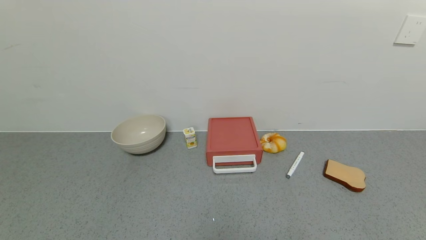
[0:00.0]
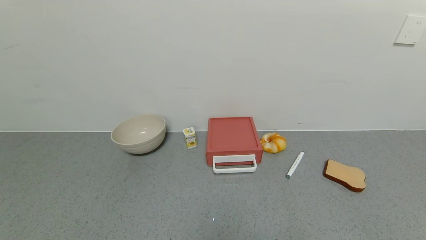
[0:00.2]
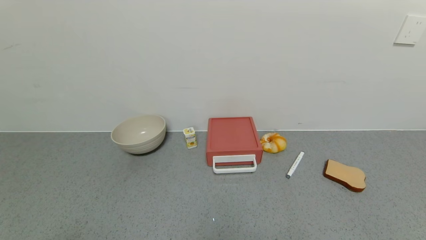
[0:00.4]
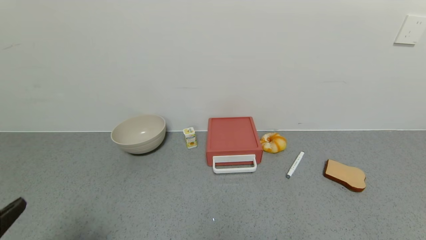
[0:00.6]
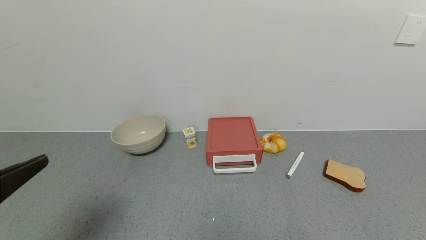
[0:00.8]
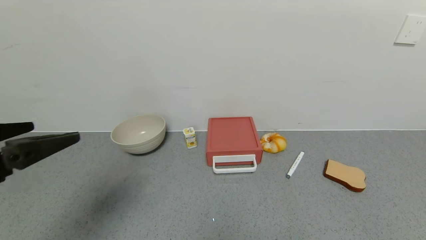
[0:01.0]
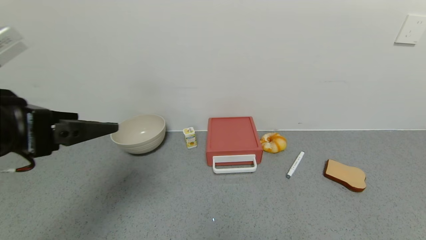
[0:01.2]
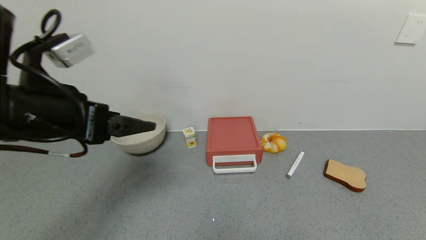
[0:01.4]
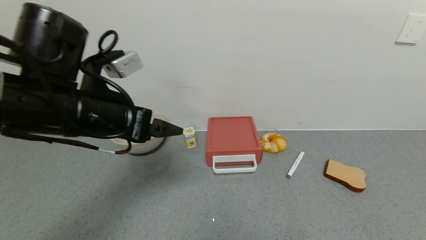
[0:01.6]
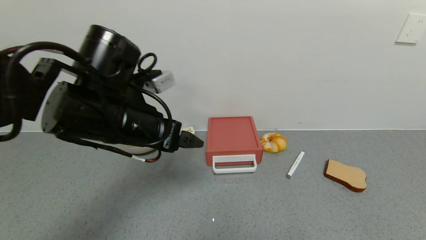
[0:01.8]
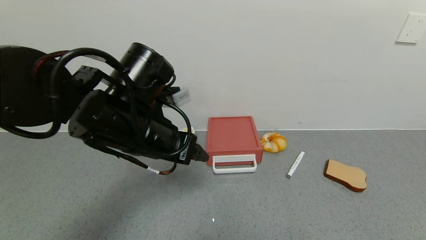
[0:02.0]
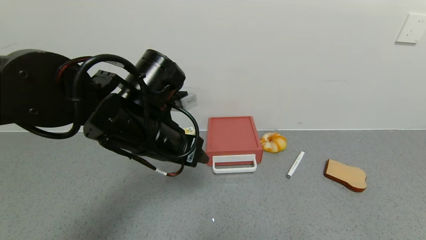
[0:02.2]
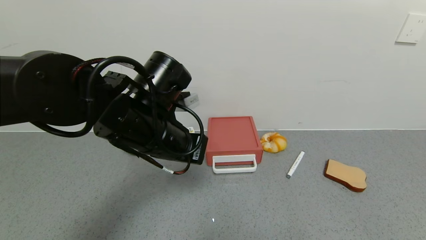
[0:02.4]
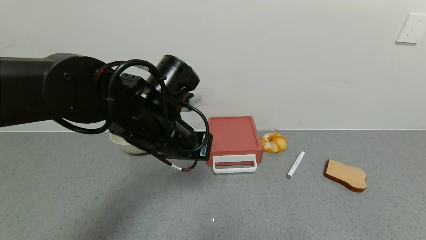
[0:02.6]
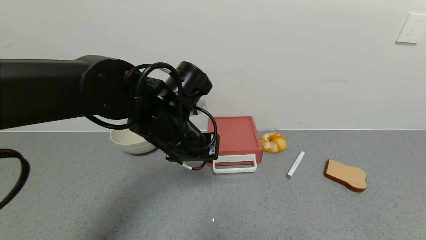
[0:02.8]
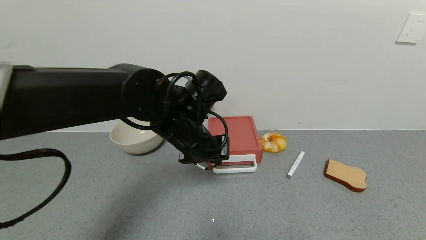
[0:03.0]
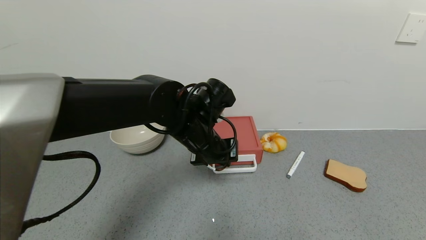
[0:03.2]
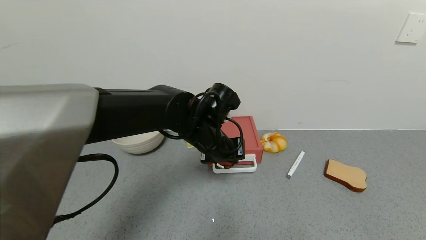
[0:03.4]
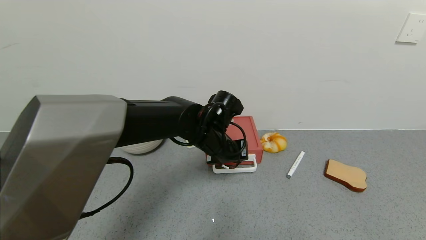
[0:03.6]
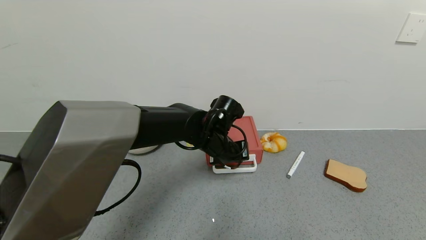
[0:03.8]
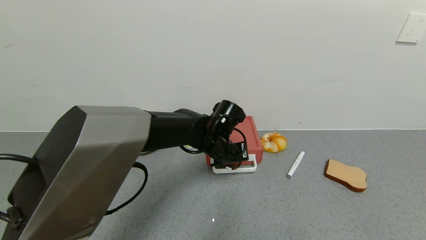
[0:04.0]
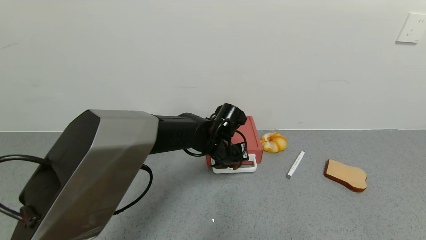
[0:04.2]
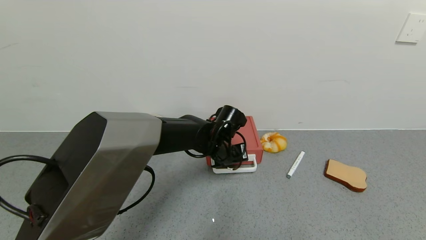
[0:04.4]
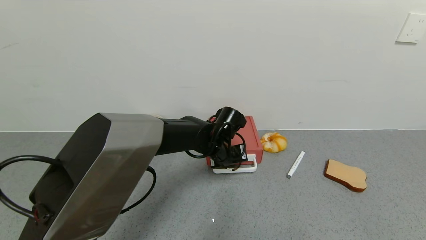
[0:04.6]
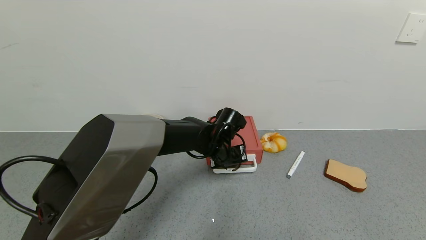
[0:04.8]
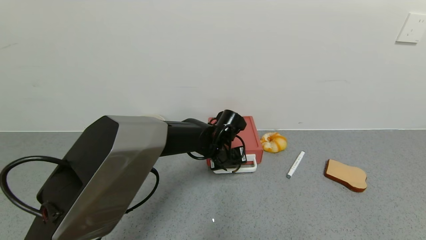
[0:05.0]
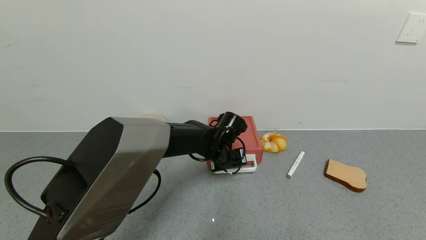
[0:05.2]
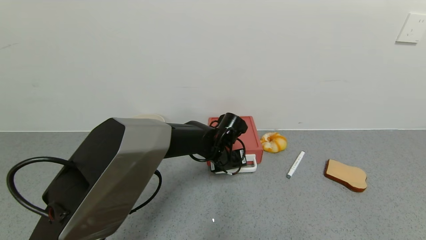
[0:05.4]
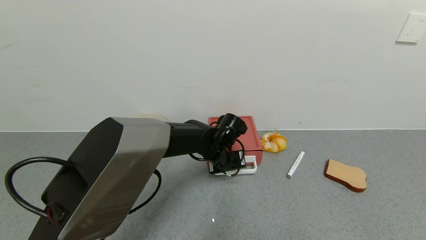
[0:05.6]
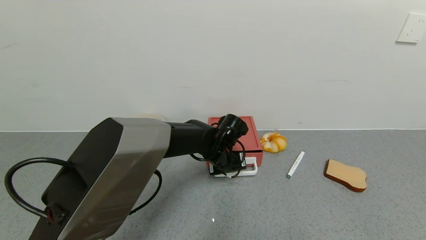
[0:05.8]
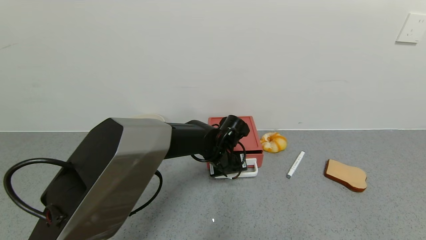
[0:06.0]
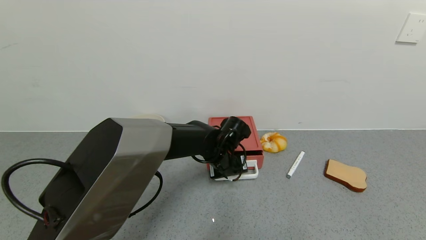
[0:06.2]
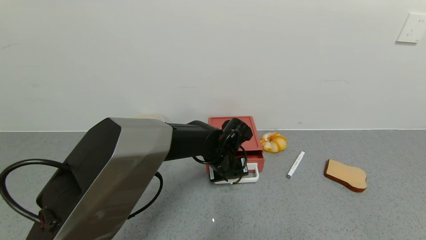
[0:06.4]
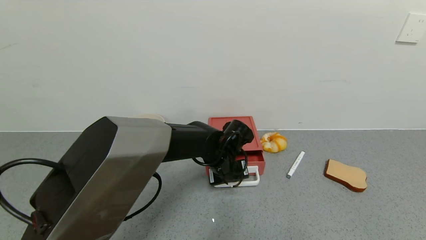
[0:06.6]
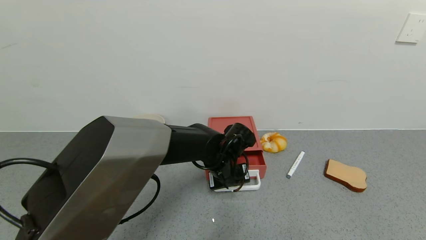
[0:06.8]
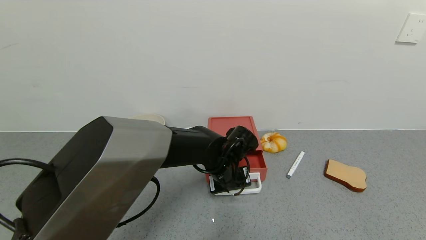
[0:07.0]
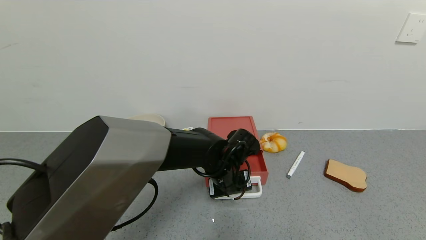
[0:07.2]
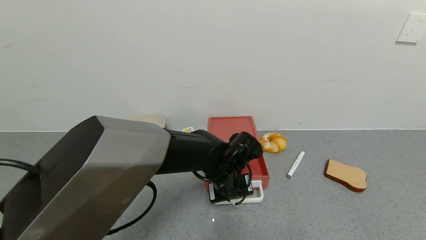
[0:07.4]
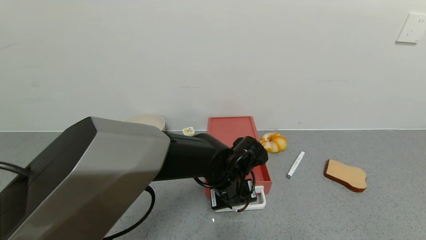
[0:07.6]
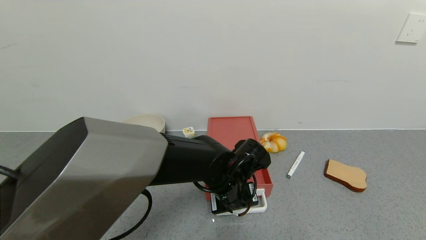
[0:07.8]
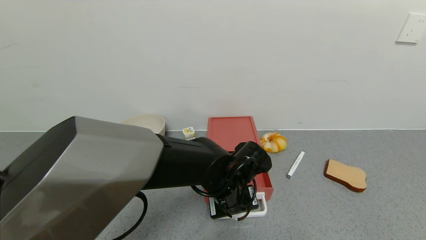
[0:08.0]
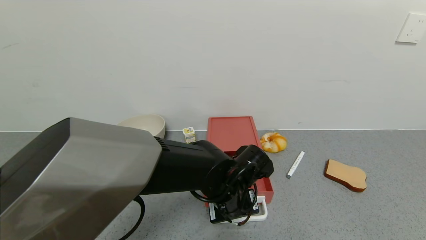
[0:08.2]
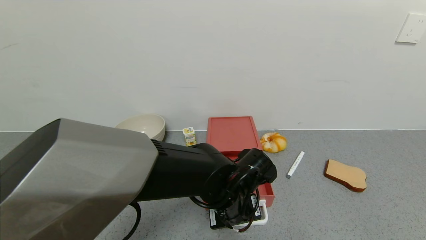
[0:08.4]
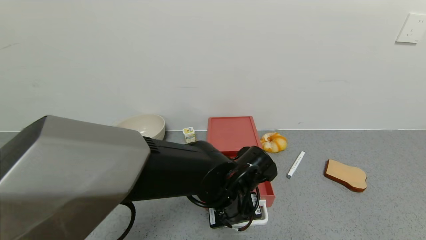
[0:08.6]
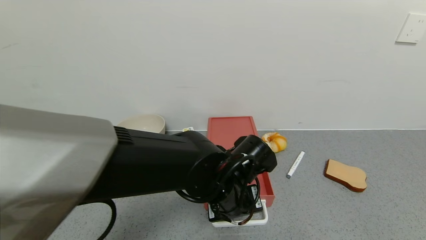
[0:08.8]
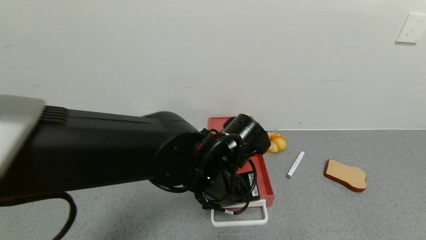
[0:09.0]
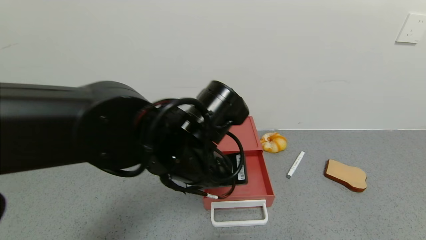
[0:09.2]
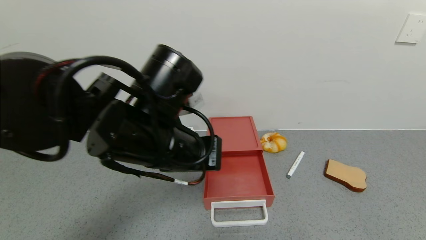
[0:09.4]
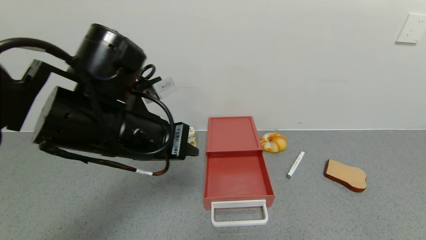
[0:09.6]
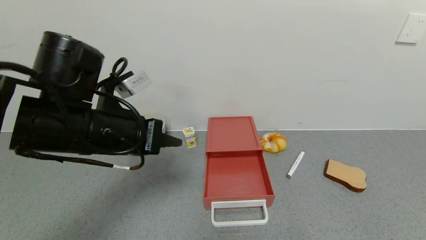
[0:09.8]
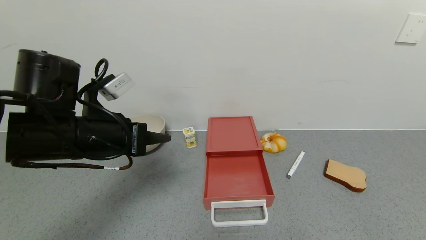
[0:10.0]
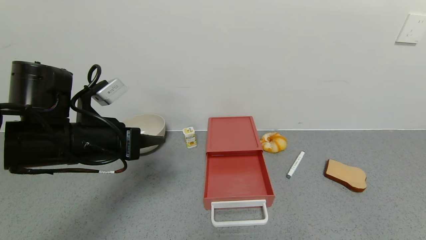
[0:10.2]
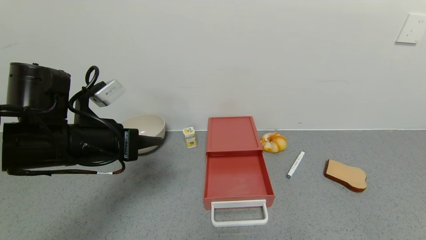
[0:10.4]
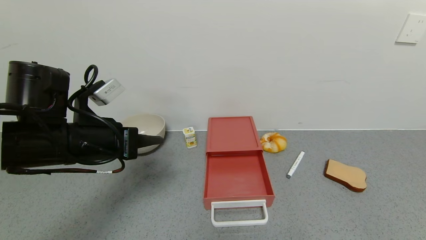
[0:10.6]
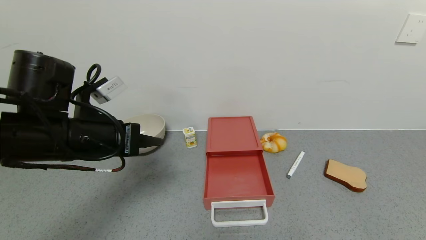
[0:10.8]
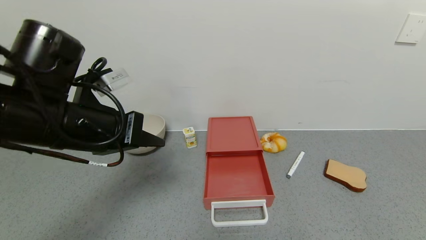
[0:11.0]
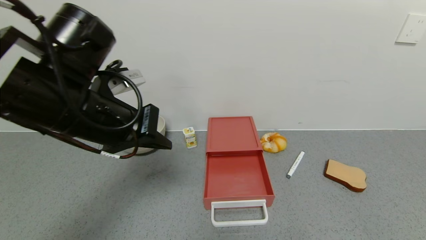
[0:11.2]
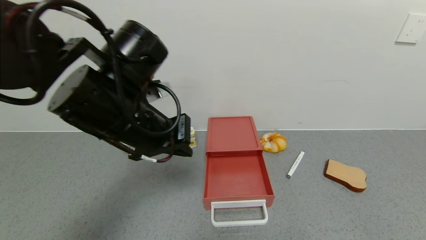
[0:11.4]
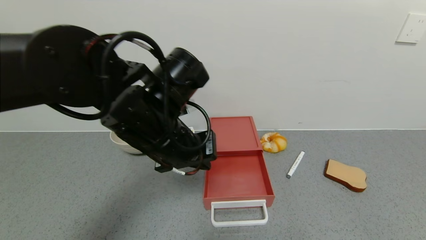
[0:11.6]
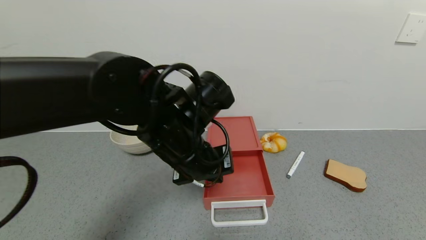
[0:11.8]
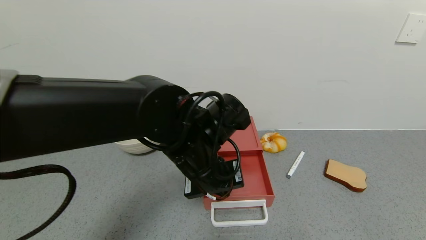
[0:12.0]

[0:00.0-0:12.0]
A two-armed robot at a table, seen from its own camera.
Task of the whole recording: use the gripper to open the drawer and close the red drawer.
Step, 0:00.0 to 0:08.8: Open the red drawer with left gripper.
0:00.0 to 0:01.6: The left gripper goes some 35 cm forward, upward and to the right.
0:01.6 to 0:03.0: The left gripper is displaced to the right, downward and forward by roughly 15 cm, and closes.
0:03.0 to 0:04.4: The left gripper moves downward, forward and to the right, about 15 cm.
0:04.4 to 0:06.0: The grippers make only small movements.
0:06.0 to 0:07.6: The left gripper heads backward, covering approximately 10 cm.
0:07.6 to 0:09.0: The left gripper is displaced upward and backward by some 10 cm.
0:09.0 to 0:10.4: The left gripper heads to the left, covering some 20 cm.
0:10.4 to 0:12.0: The left gripper is displaced to the right by some 20 cm.

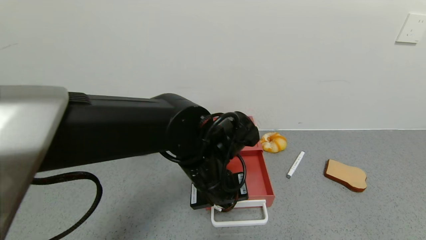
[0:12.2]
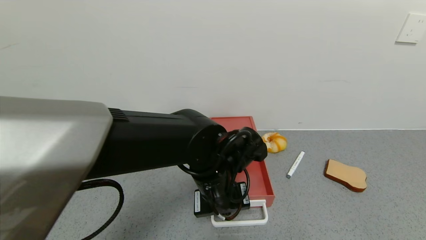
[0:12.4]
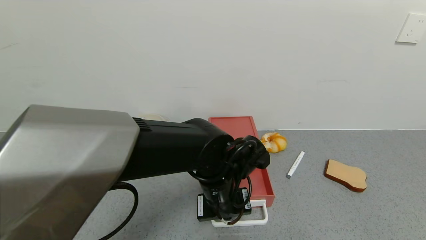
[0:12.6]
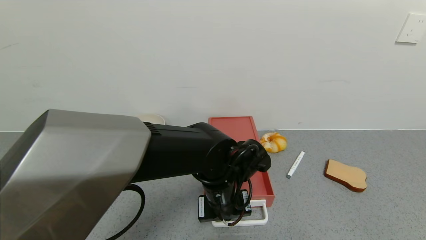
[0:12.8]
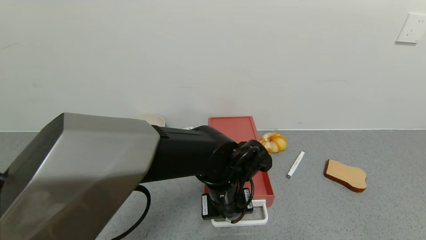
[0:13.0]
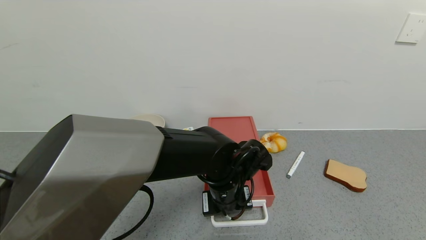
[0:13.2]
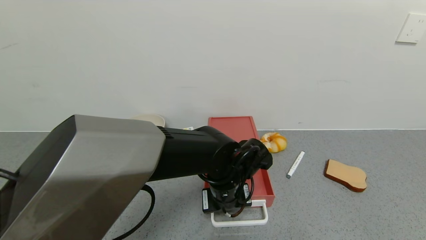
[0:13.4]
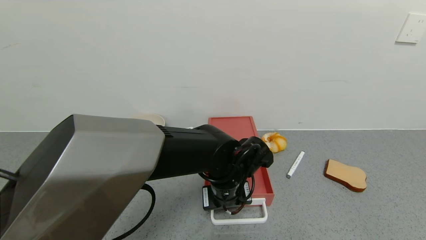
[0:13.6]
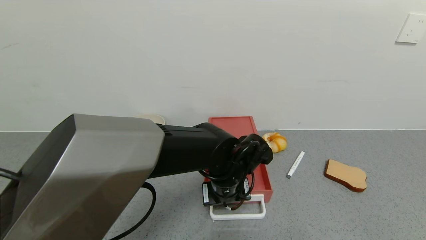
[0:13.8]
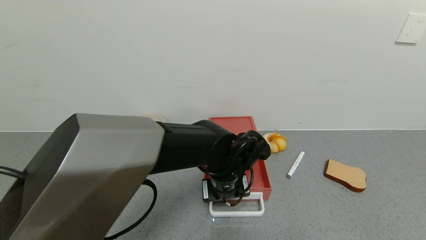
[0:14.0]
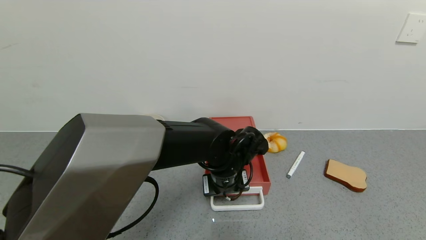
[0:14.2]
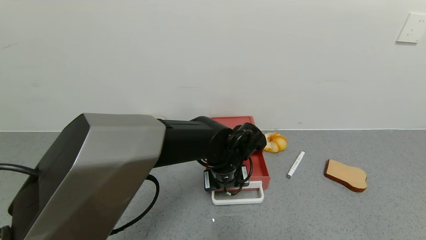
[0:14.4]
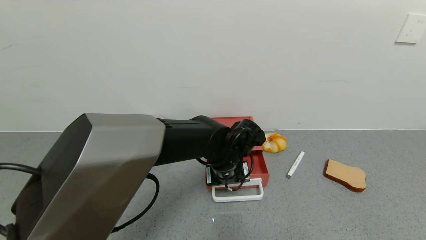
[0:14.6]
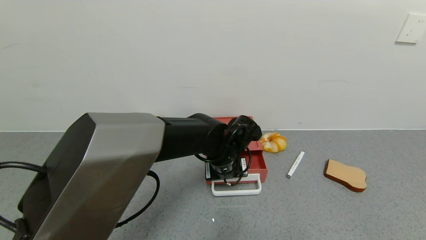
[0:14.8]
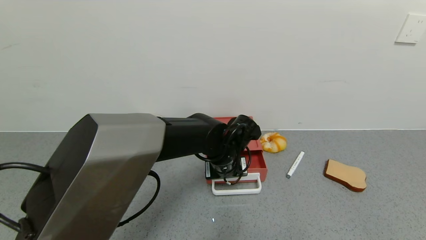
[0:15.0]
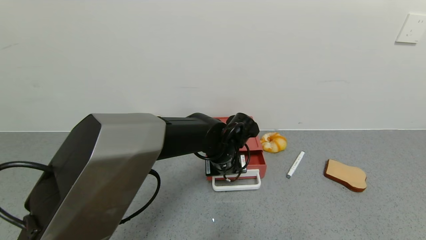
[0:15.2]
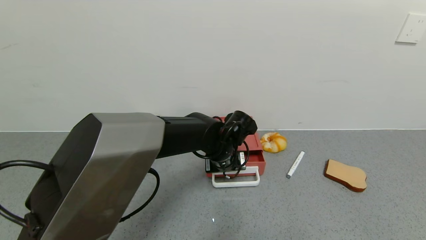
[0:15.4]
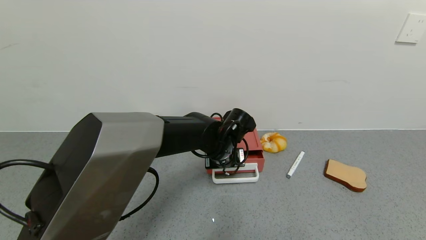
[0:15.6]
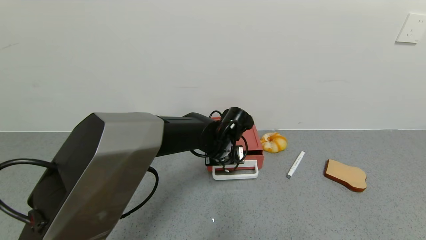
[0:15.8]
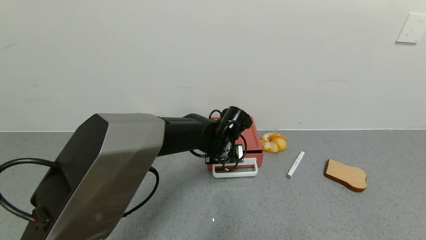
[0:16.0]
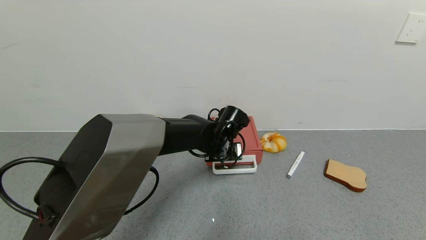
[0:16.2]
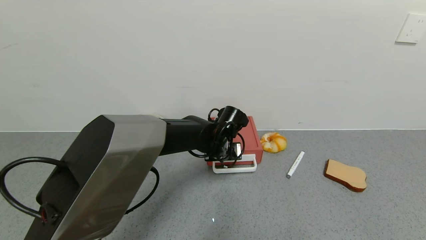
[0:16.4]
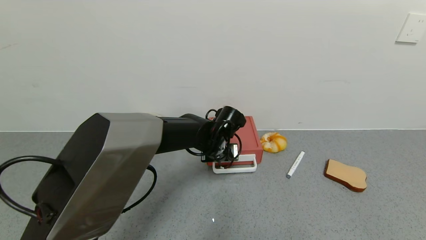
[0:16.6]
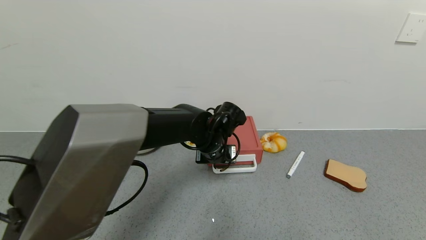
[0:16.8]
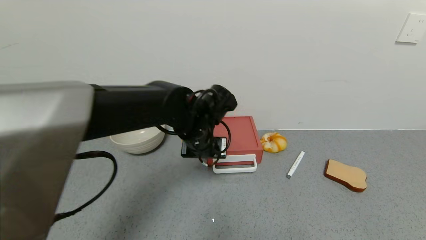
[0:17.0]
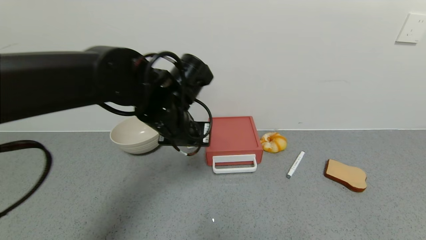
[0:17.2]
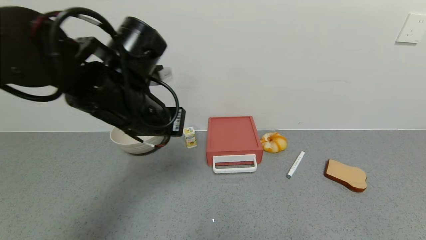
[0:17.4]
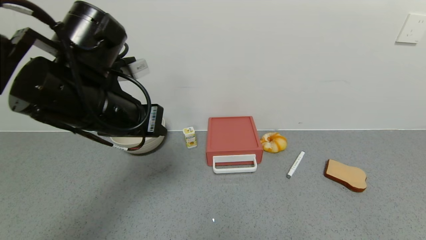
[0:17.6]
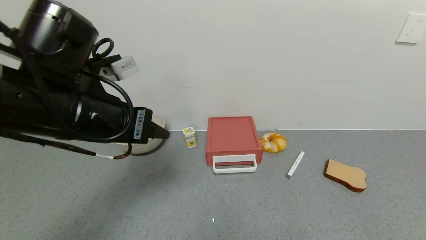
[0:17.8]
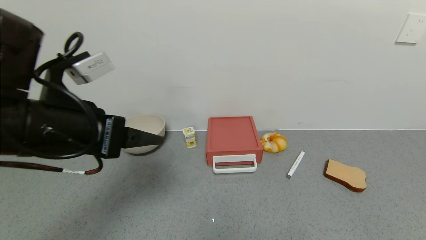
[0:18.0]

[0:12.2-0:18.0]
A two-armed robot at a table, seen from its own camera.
Task of the whole recording: use the gripper to open the drawer and close the red drawer.
Step, 0:12.2 to 0:16.8: Close the red drawer with left gripper.
0:12.2 to 0:13.6: The left gripper travels downward by about 5 cm.
0:13.6 to 0:15.0: The left gripper moves forward, roughly 5 cm.
0:15.0 to 0:16.6: The grippers move only a little.
0:16.6 to 0:18.0: The left gripper shifts some 30 cm to the left, backward and upward, and opens.
